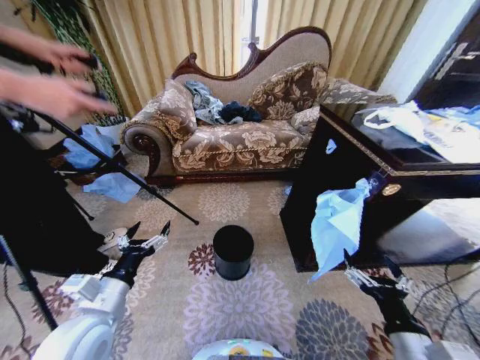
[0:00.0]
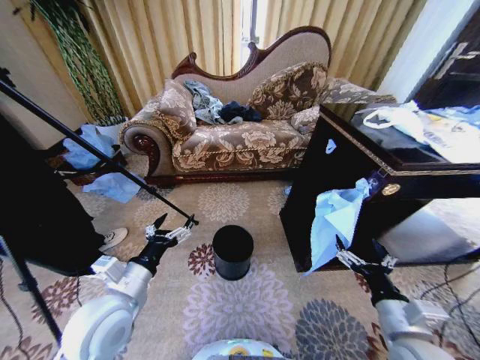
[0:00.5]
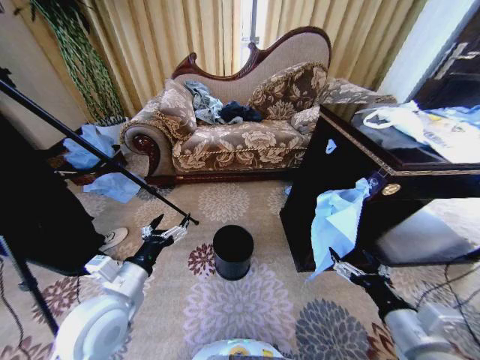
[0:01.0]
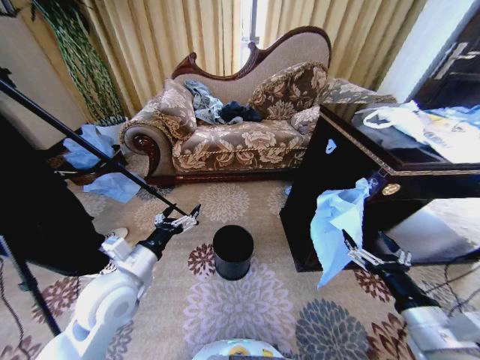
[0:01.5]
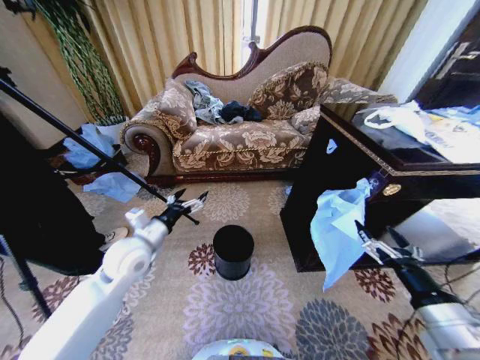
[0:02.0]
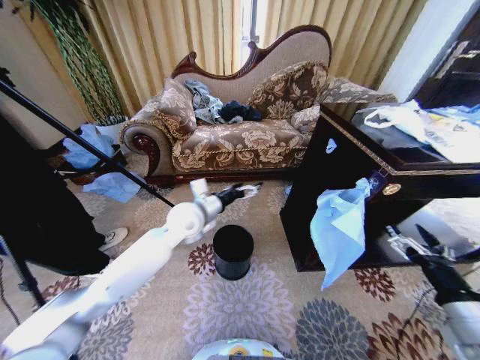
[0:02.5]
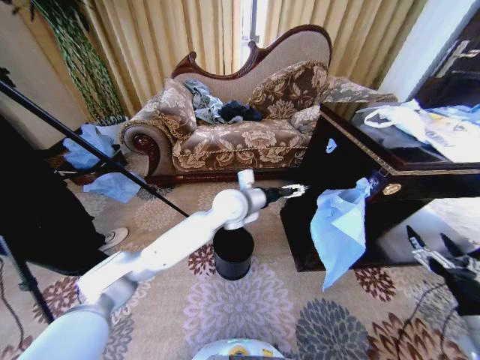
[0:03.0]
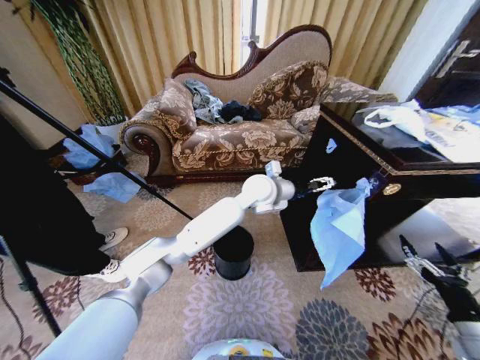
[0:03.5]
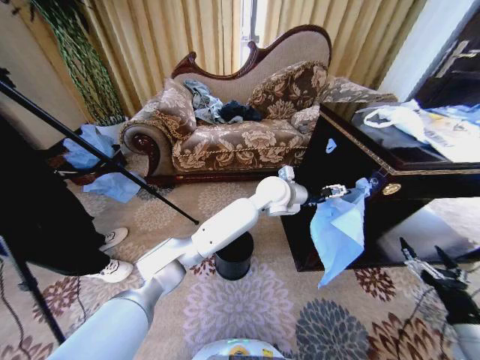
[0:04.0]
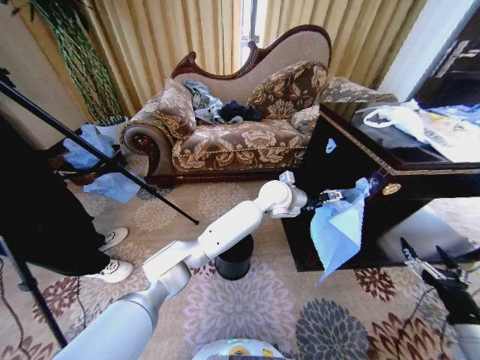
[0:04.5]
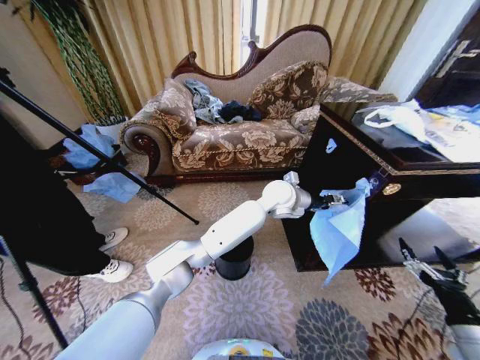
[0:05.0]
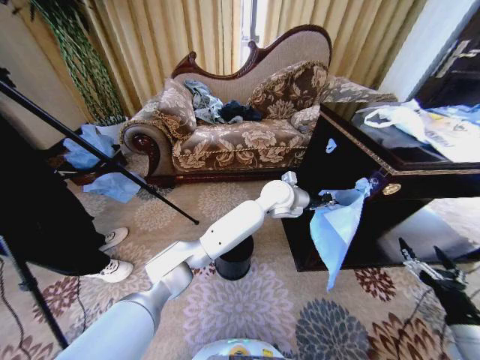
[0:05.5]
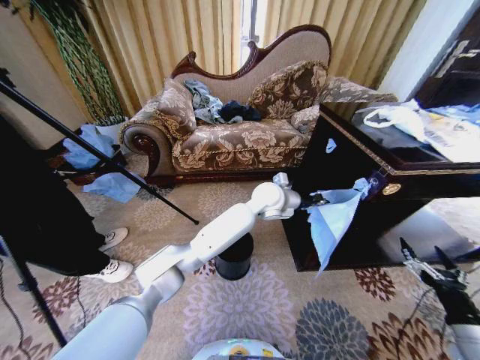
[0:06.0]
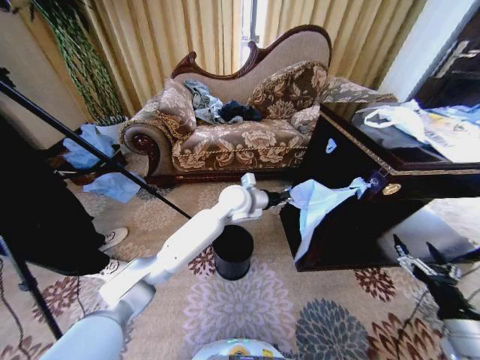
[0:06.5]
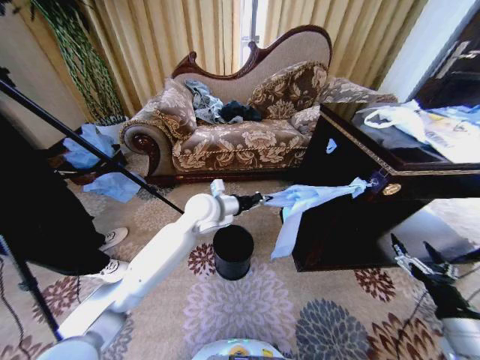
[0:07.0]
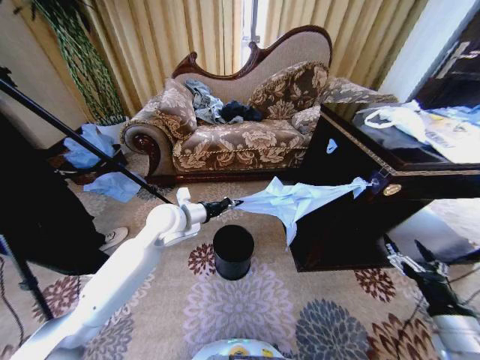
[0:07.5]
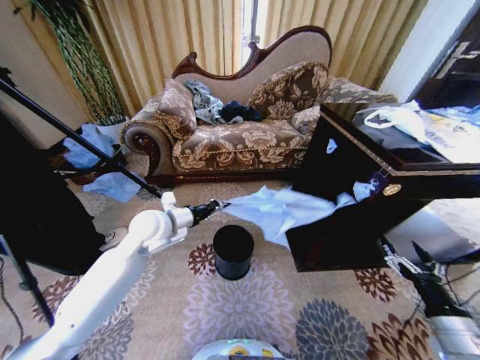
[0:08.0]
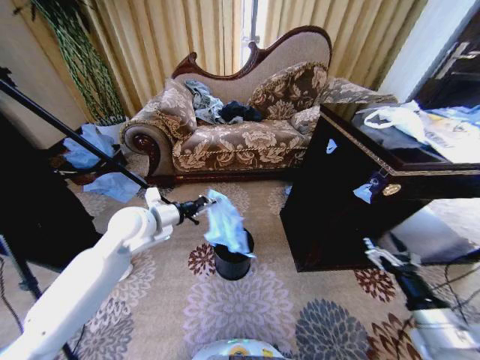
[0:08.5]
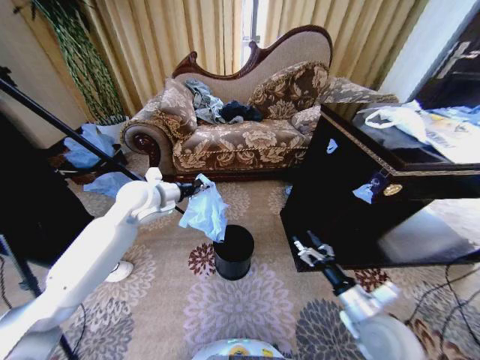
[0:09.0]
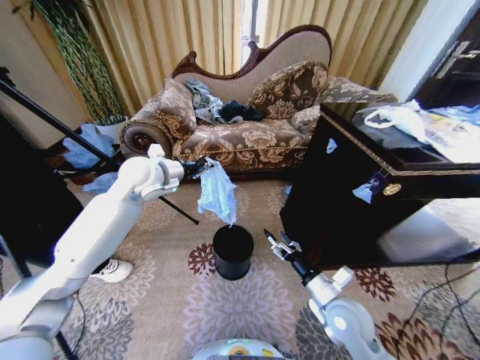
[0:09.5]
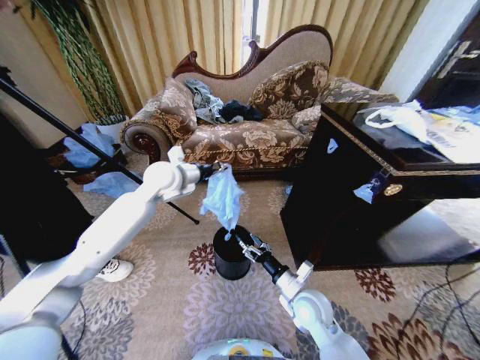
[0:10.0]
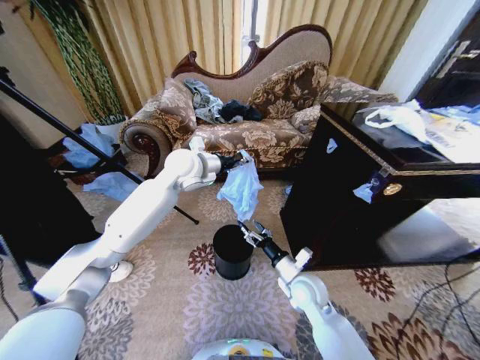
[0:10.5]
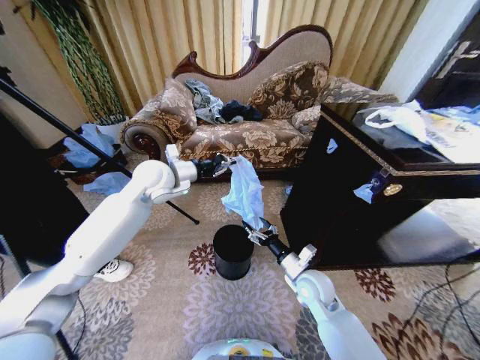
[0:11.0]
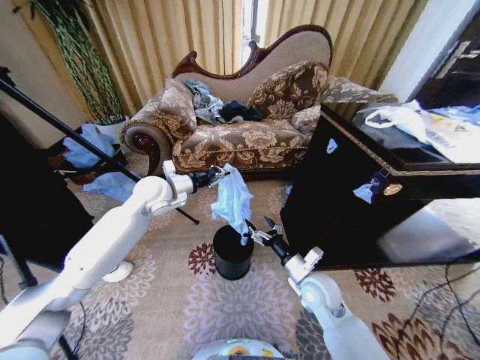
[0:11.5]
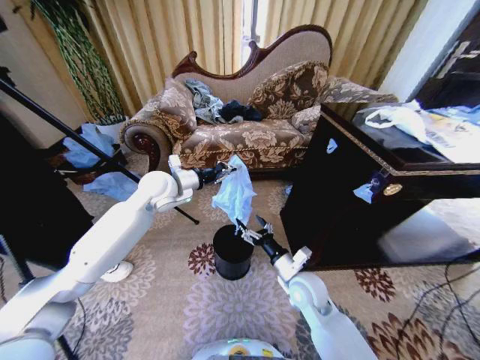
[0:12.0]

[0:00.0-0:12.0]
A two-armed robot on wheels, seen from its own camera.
Task of the whole recording: Place a garbage bag over the trash bin.
0:02.0 to 0:04.0: The right gripper shifts some 15 cm to the right and downward, while the left gripper heads to the right and forward, covering some 40 cm.
0:04.0 to 0:06.0: The left gripper closes.
0:06.0 to 0:08.0: The left gripper shifts roughly 30 cm to the left.
0:08.0 to 0:10.0: The left gripper moves forward and upward, approximately 15 cm; the right gripper moves to the left and forward, some 30 cm.
0:10.0 to 0:12.0: The left gripper travels to the right and back again, roughly 5 cm each way.

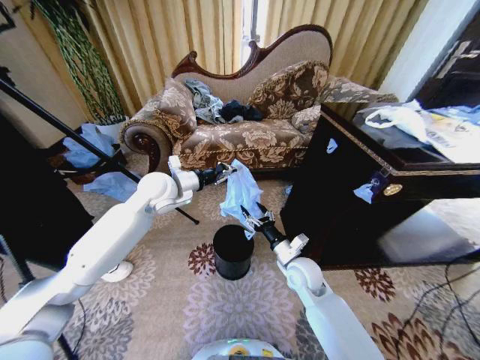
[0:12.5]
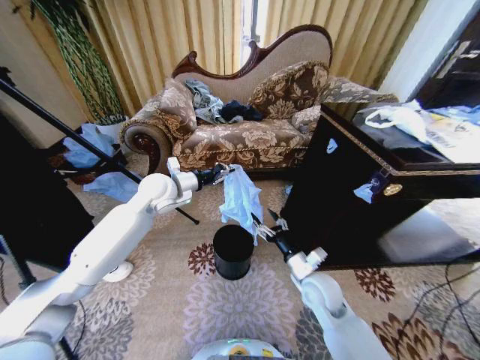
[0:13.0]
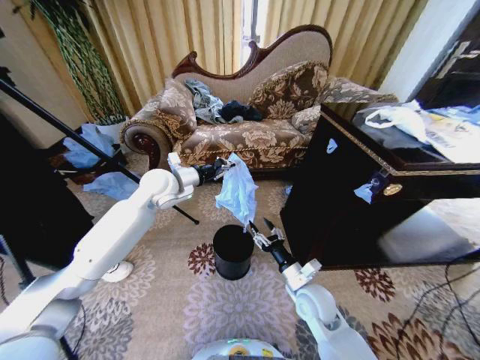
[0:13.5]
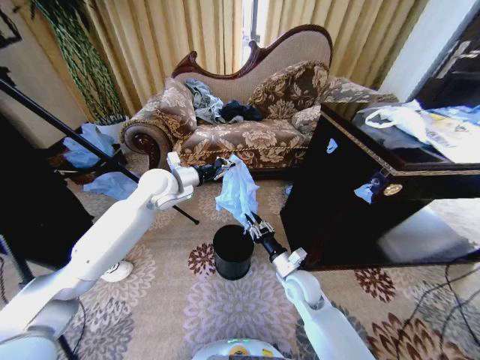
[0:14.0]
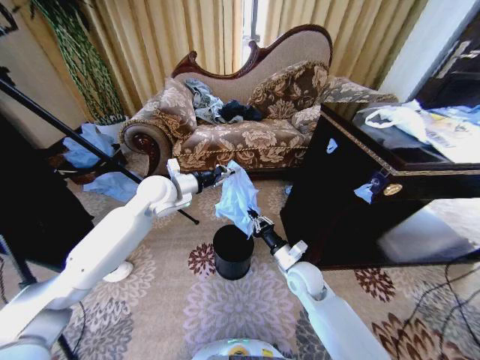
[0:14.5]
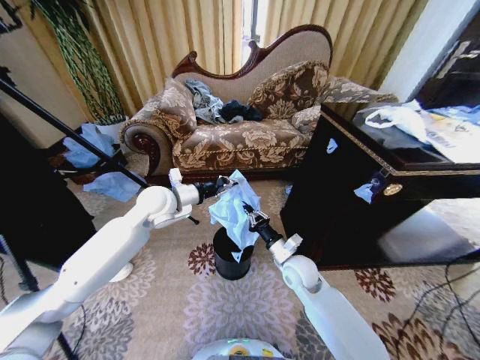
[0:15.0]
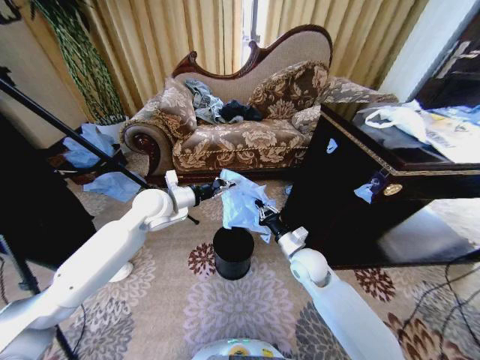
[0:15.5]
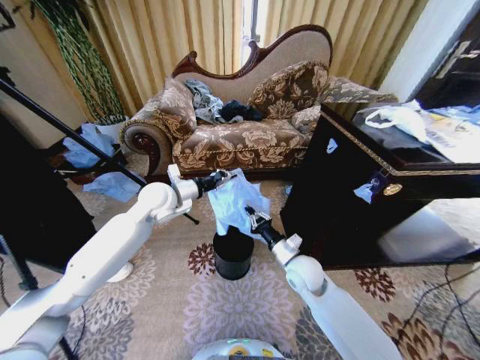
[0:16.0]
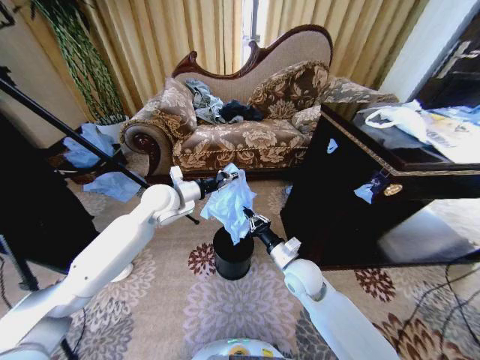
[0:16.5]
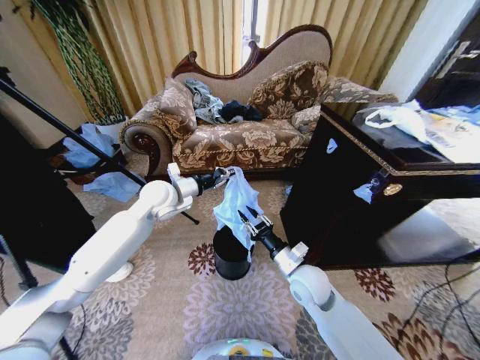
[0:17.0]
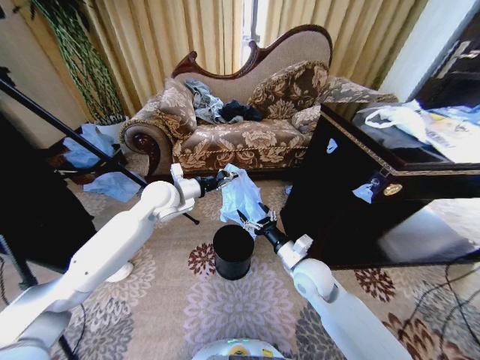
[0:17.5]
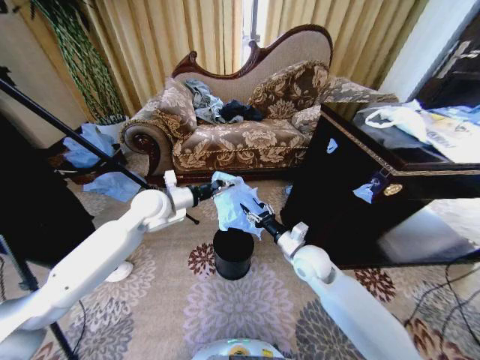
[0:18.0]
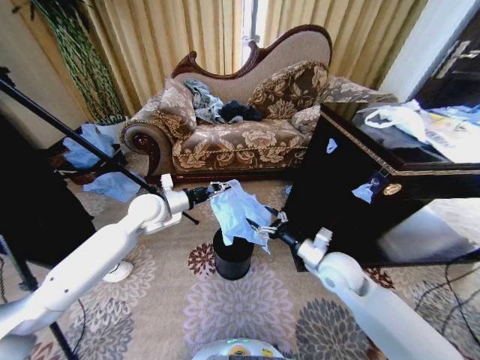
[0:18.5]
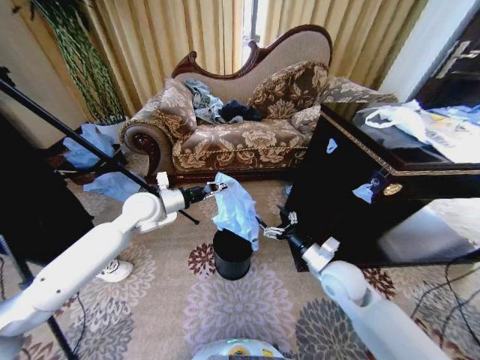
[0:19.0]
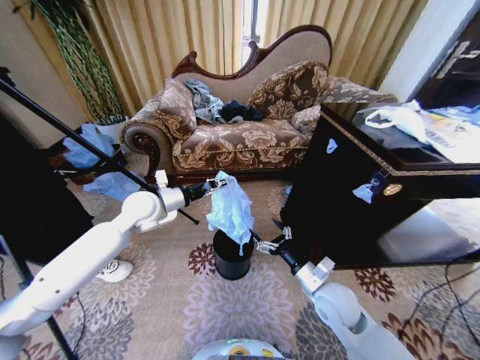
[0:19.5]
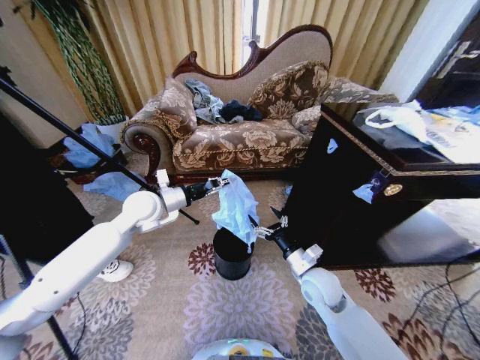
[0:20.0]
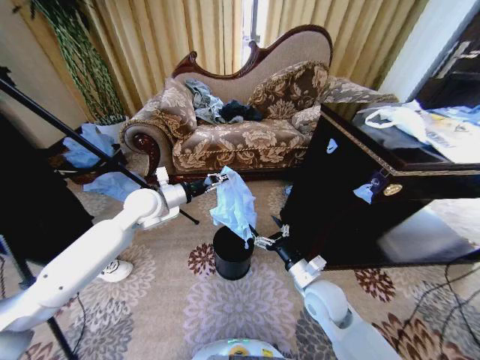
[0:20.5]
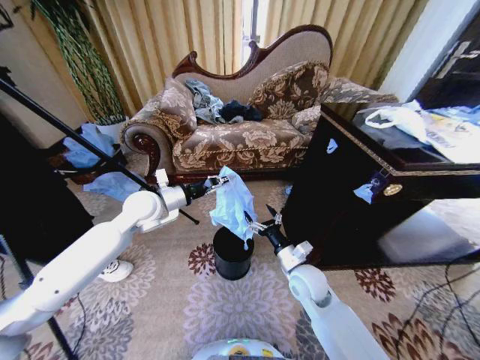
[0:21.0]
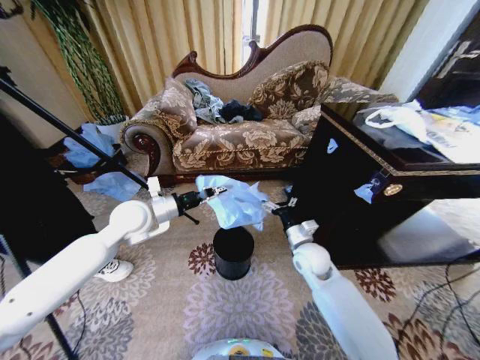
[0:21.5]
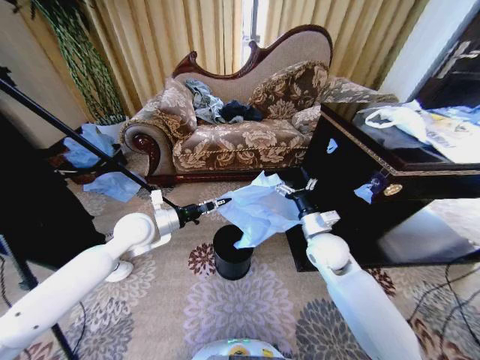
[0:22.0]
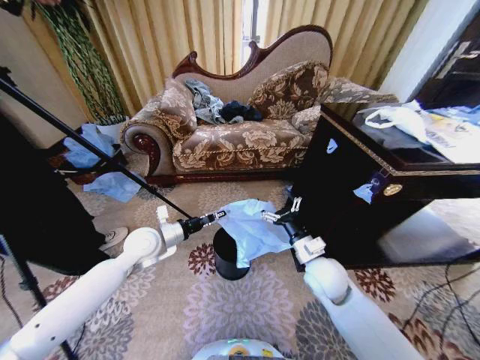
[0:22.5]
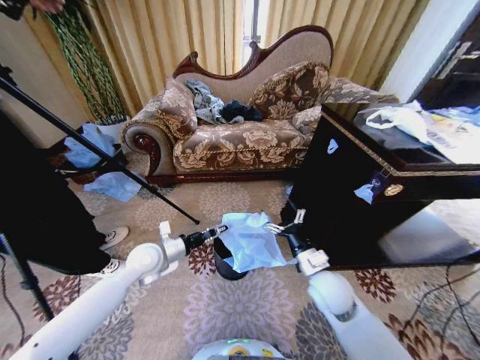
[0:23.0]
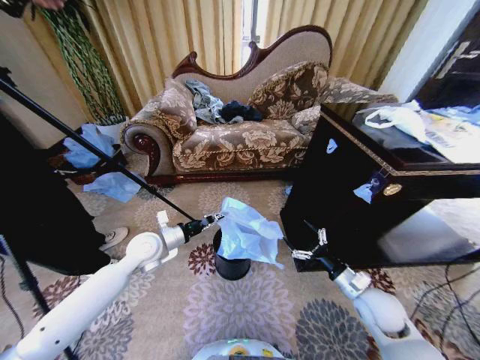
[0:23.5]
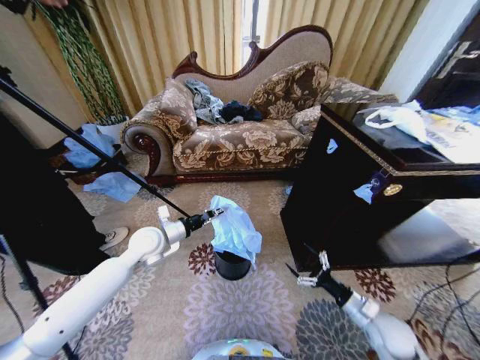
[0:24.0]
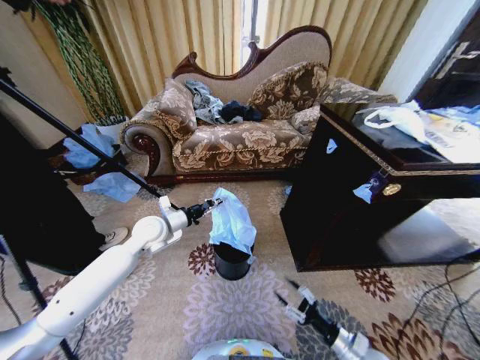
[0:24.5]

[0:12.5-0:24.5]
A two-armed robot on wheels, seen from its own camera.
Task of the whole recording: Place a garbage bag over the trash bin.
0:12.5 to 0:14.5: The right gripper closes its fingers.
0:14.5 to 0:16.5: The grippers stay close to where they were, moving slightly.
0:16.5 to 0:18.5: The right gripper heads to the right, covering roughly 10 cm, and opens its fingers.
0:18.5 to 0:20.5: The right gripper moves downward, approximately 5 cm.
0:20.5 to 0:22.5: The left gripper travels downward and backward by approximately 10 cm.
0:22.5 to 0:24.5: The right gripper is displaced downward, backward and to the right by approximately 30 cm, and closes its fingers.

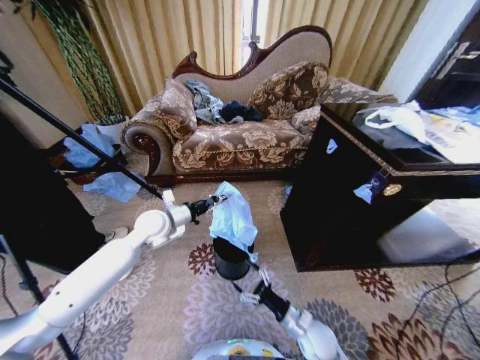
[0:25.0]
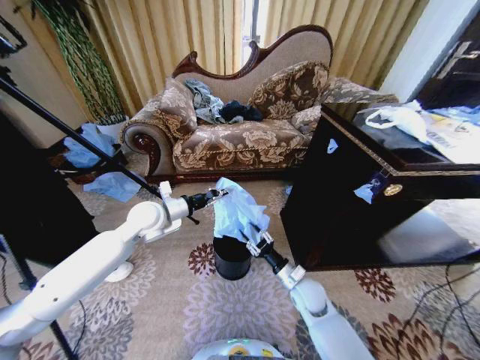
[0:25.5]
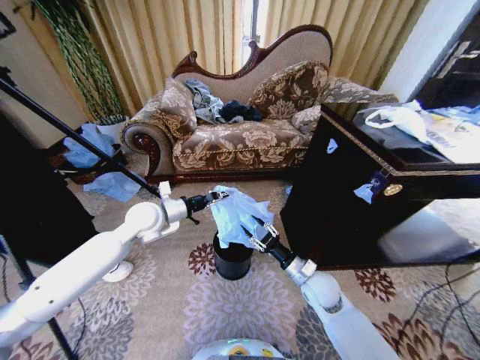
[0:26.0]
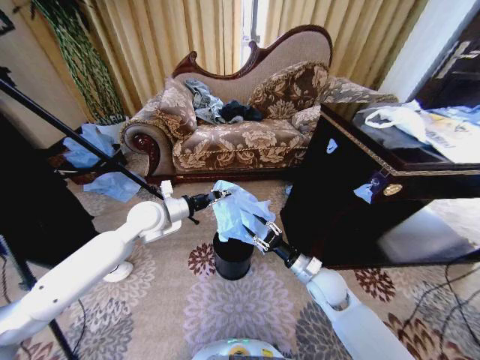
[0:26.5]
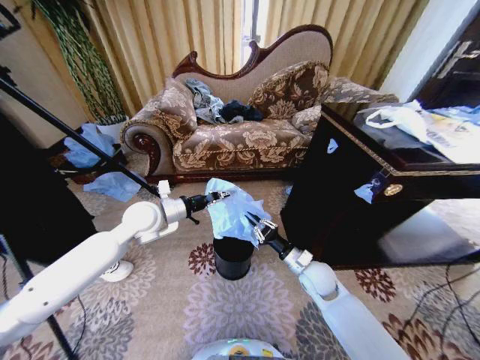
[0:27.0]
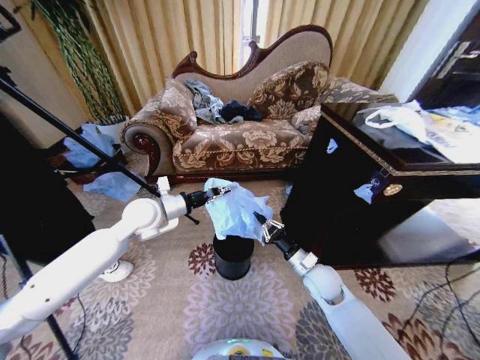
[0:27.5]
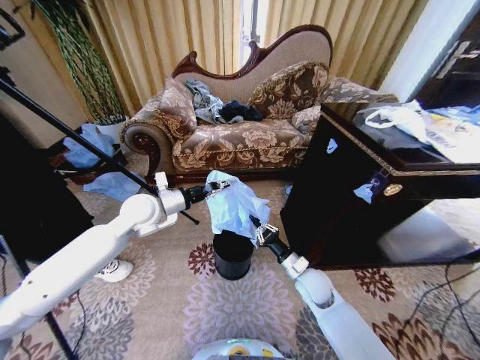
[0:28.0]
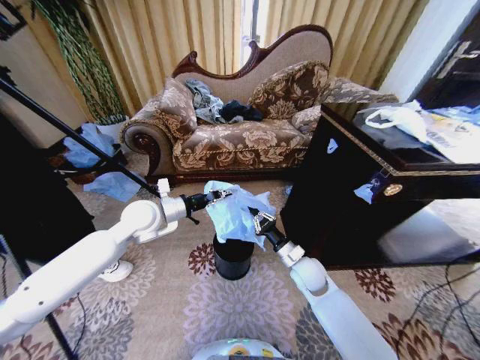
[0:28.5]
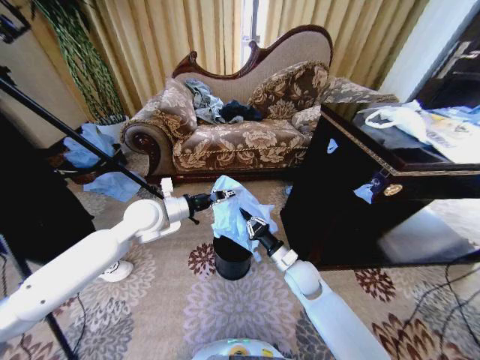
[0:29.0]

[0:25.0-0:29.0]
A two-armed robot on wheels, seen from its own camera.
Task of the whole recording: Place a garbage bag over the trash bin.
0:25.0 to 0:27.0: The right gripper goes some 15 cm forward and upward, and closes its fingers.
0:27.0 to 0:29.0: The grippers stay close to where they were, moving slightly.
